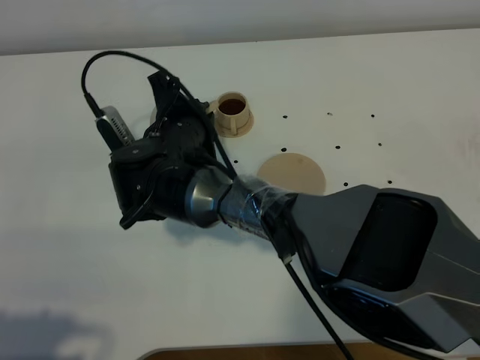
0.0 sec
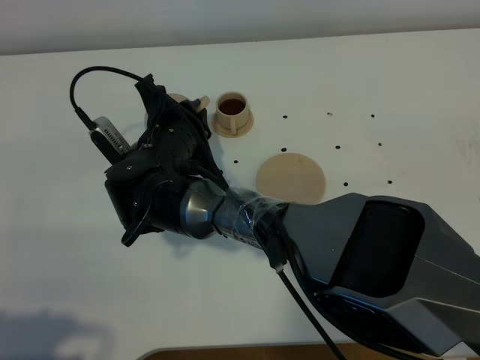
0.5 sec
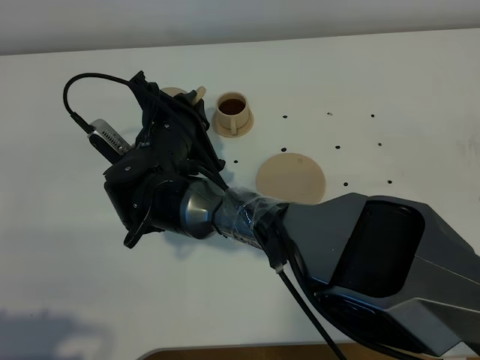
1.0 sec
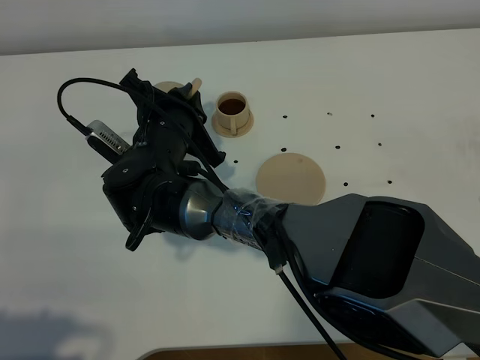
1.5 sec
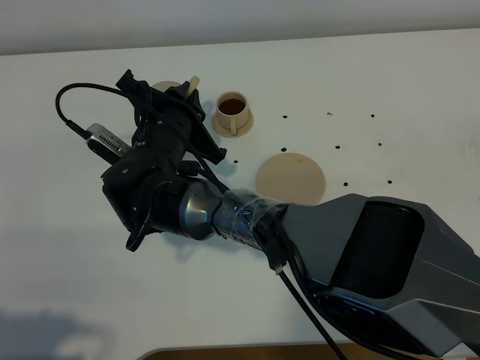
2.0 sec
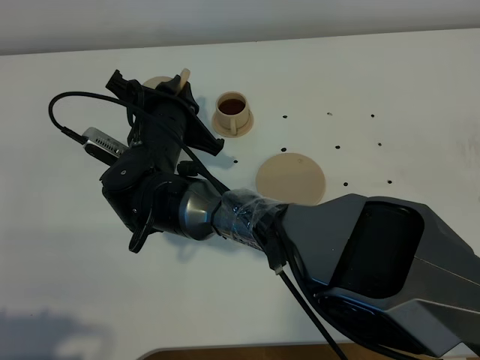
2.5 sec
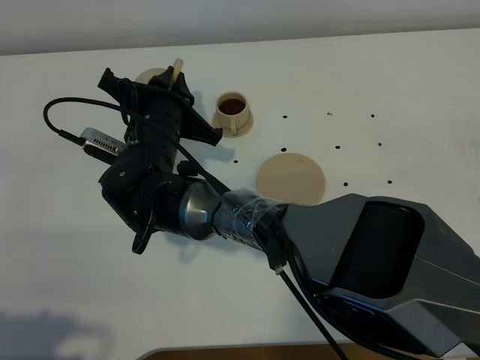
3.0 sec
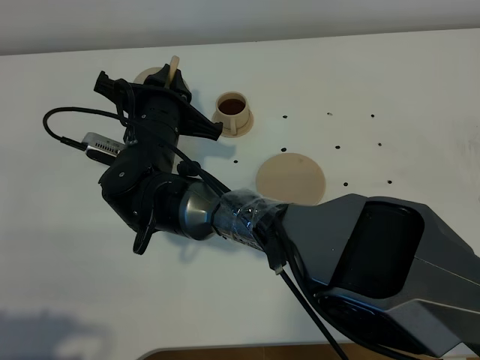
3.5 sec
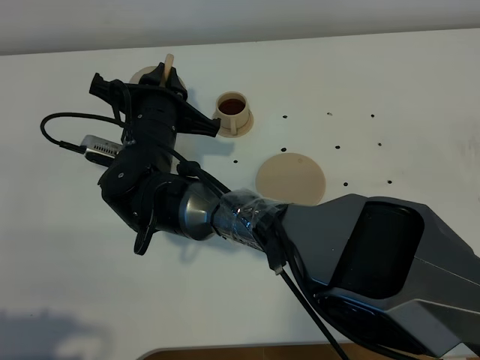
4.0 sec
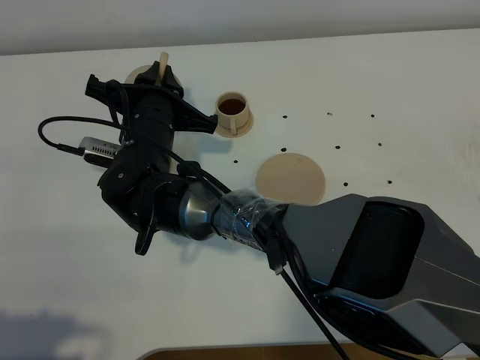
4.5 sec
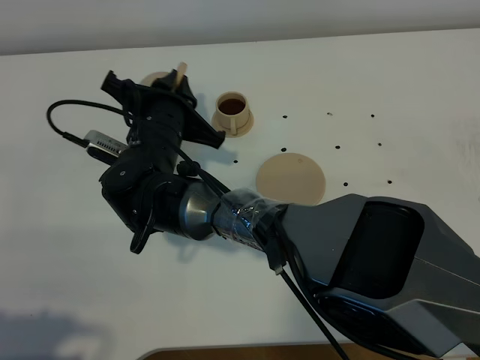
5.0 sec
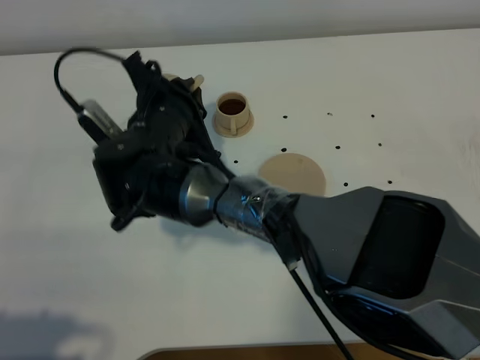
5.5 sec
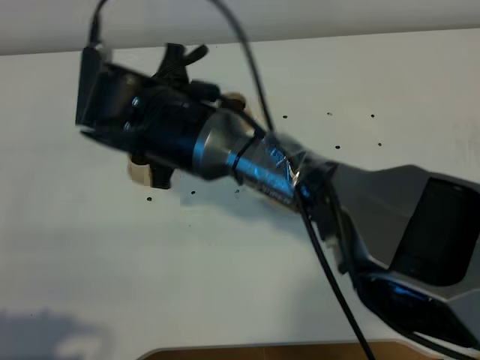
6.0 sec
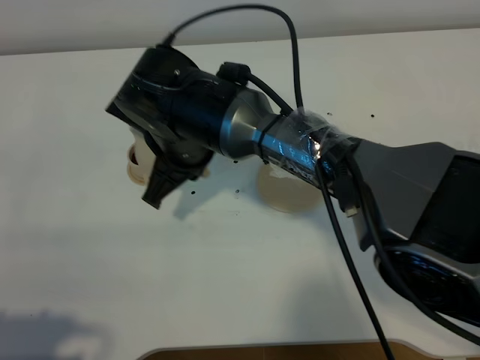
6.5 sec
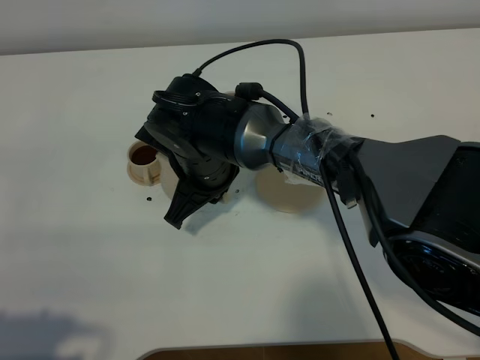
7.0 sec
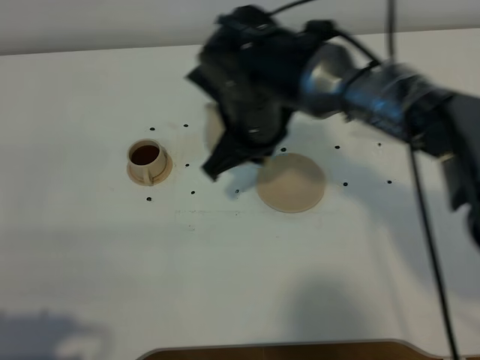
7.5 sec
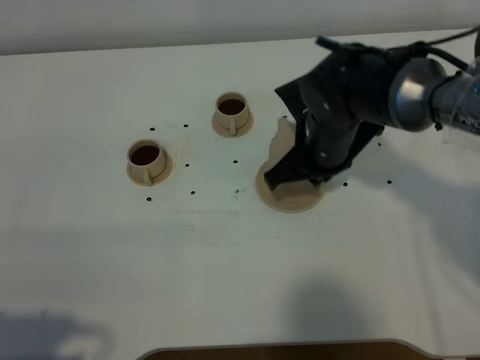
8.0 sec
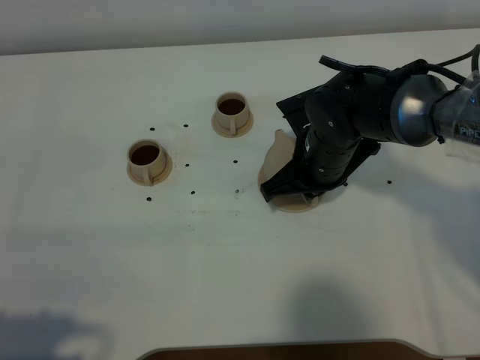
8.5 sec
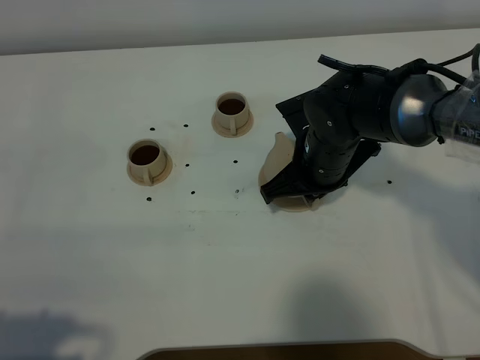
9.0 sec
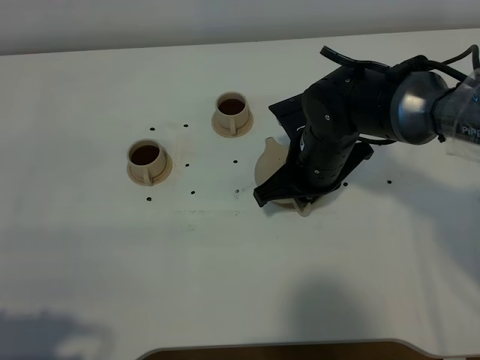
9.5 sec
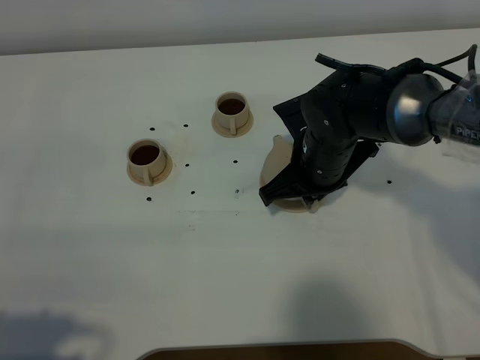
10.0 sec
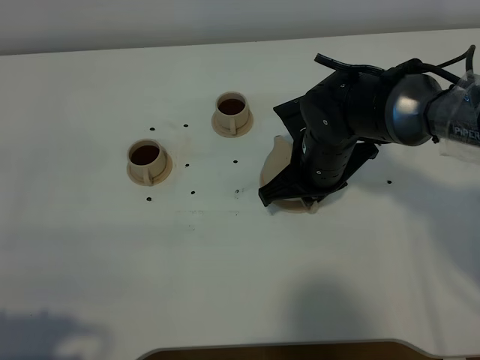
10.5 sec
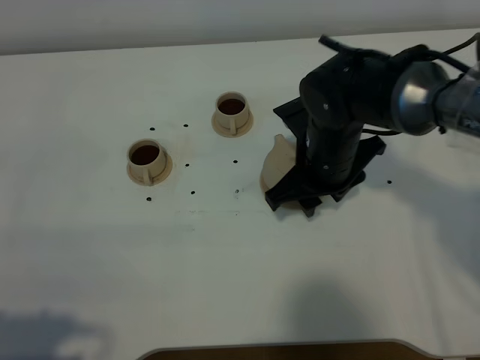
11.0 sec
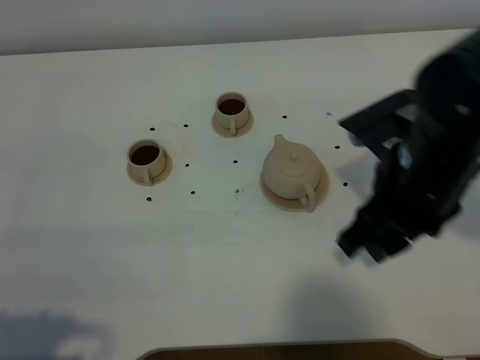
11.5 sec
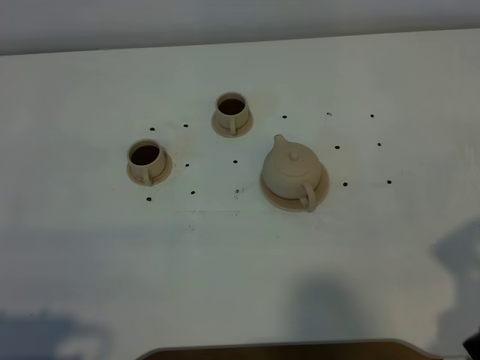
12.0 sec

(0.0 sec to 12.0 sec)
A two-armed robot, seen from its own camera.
Task of the whole recording: grasp the brown teapot and pour the tea into the two brown teacups one by one, put the brown teapot back in its original place.
Step, 0.0 sec - 5.5 sec: Pour tea into the teacup with the right gripper.
2.0 sec - 4.0 sec: The grippers make only small movements.
4.0 sec - 6.0 sec: The right gripper is displaced upward by approximately 5 cm.
6.0 sec - 8.0 sec: The right gripper shifts some 20 cm to the right.
8.0 sec - 10.0 sec: The grippers make only small movements.
10.0 sec - 12.0 sec: The right gripper is displaced backward, to the right and upward by approximately 30 cm, and opens up.

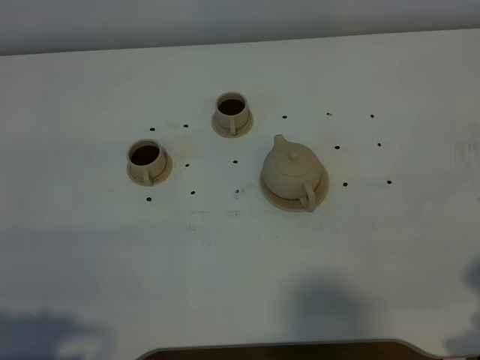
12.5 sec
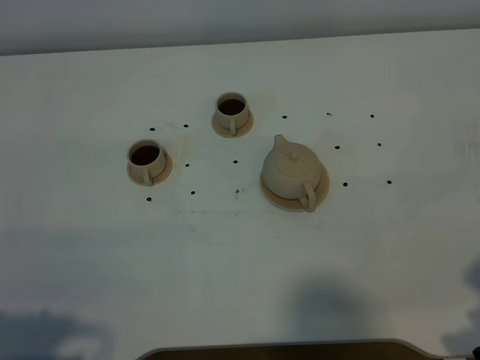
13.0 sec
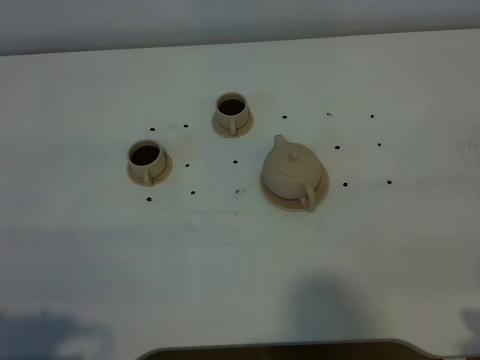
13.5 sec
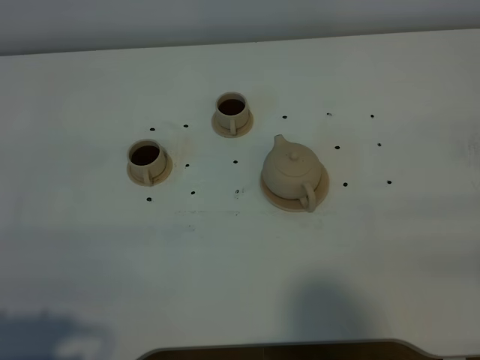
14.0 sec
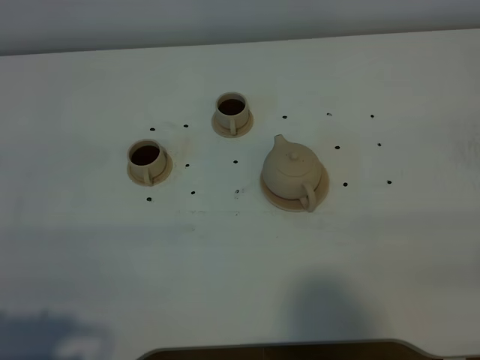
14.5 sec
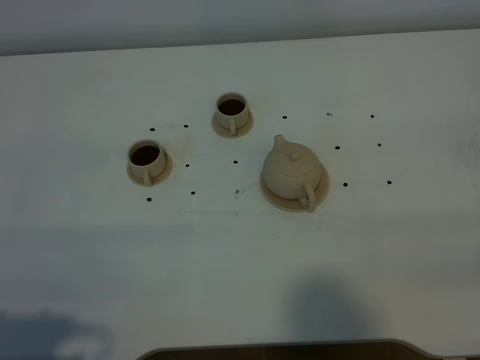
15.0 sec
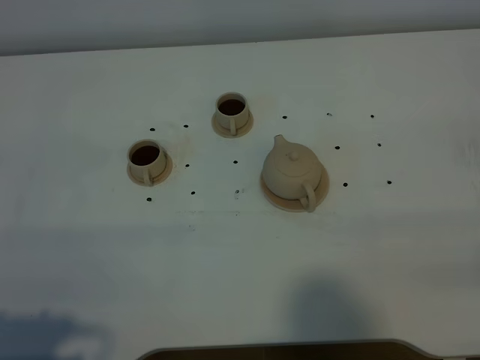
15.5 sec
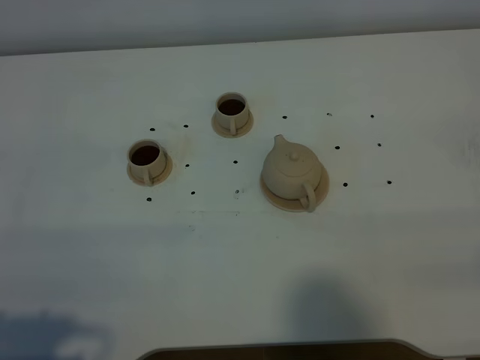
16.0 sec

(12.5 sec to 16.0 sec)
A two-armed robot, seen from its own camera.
Task of the whole recording: grasp the brown teapot and pour the tea into the two brown teacups one by one, put the brown teapot back in its original place.
14.5 sec - 16.0 sec: The two grippers keep their place.

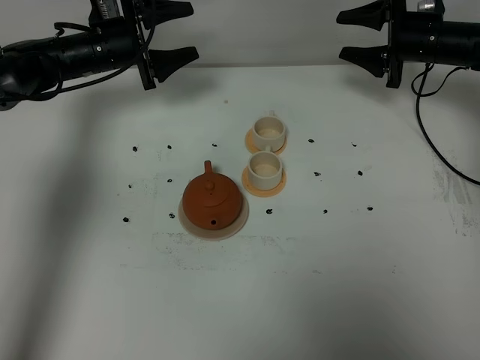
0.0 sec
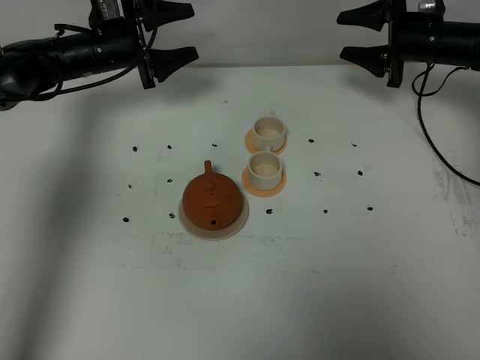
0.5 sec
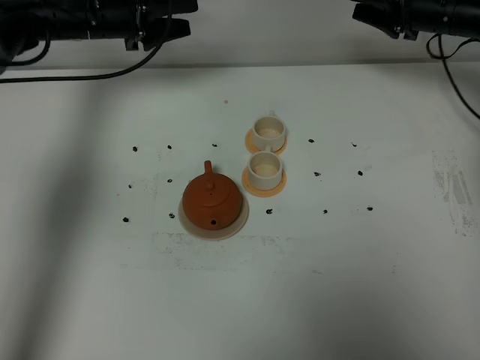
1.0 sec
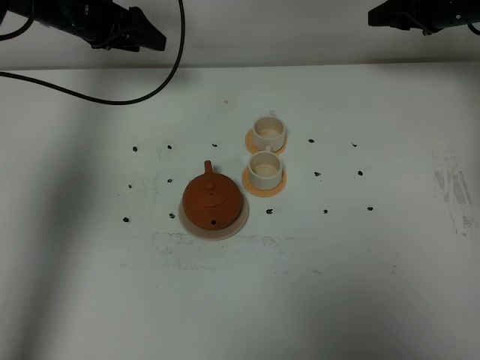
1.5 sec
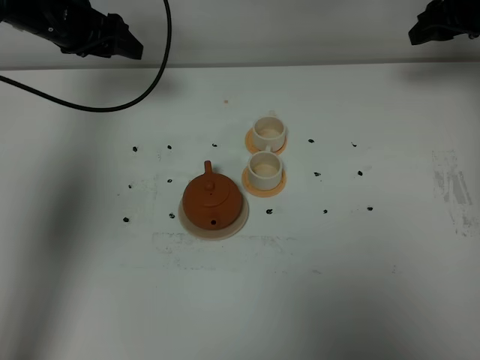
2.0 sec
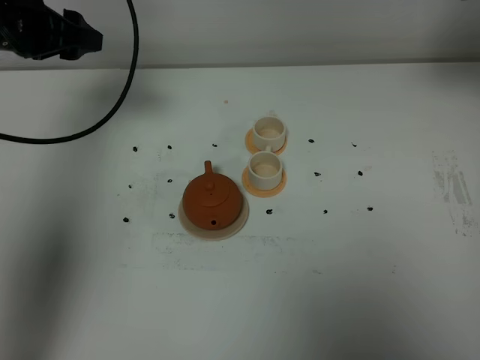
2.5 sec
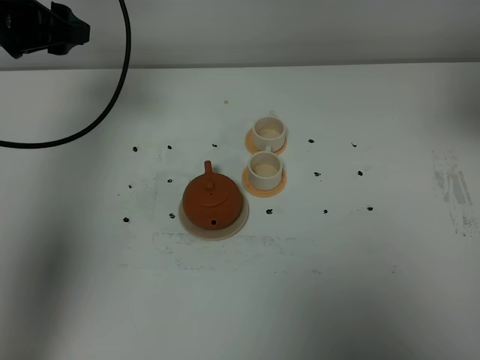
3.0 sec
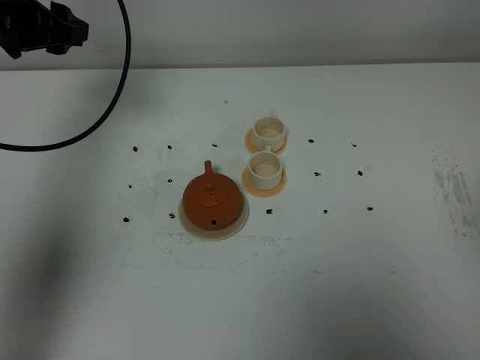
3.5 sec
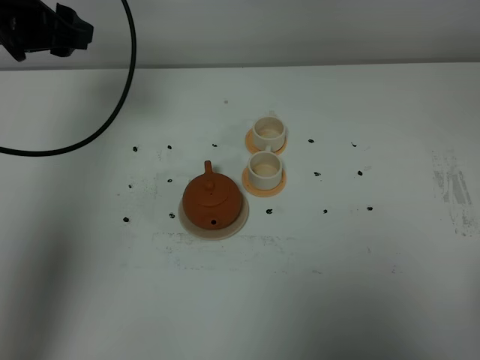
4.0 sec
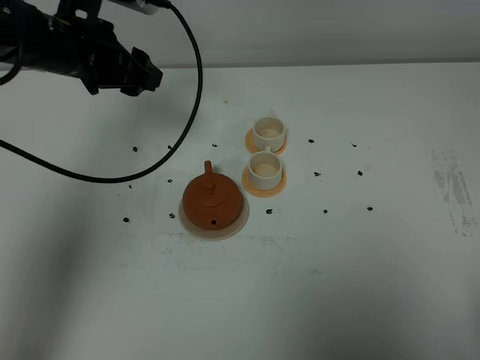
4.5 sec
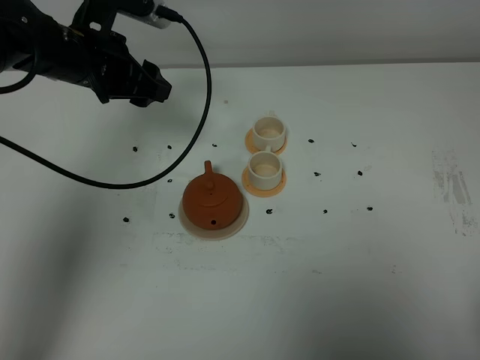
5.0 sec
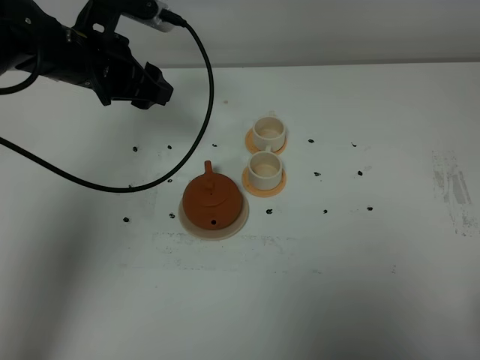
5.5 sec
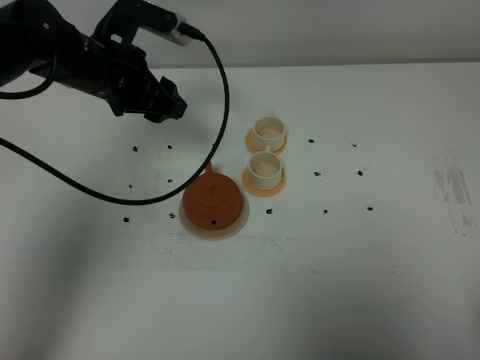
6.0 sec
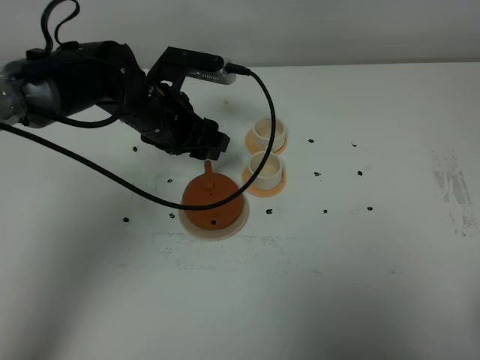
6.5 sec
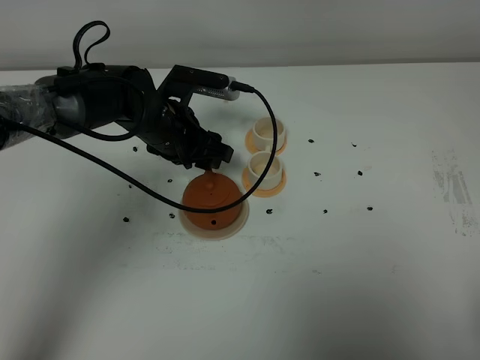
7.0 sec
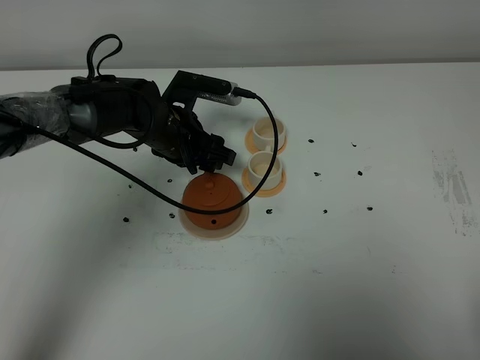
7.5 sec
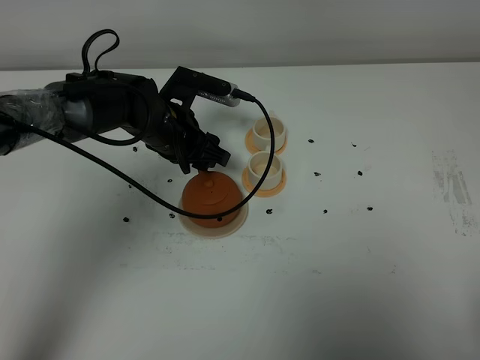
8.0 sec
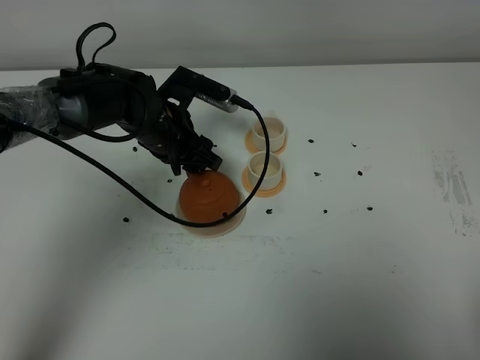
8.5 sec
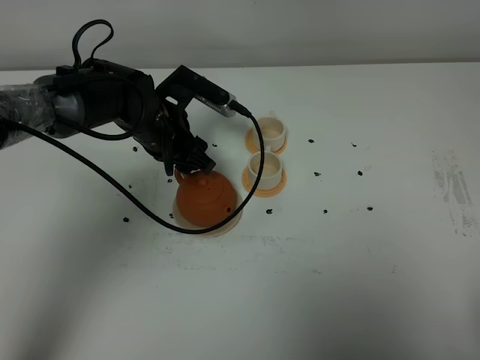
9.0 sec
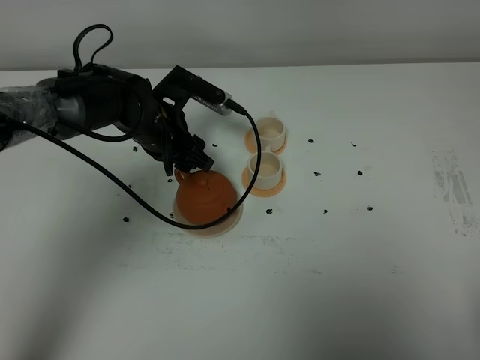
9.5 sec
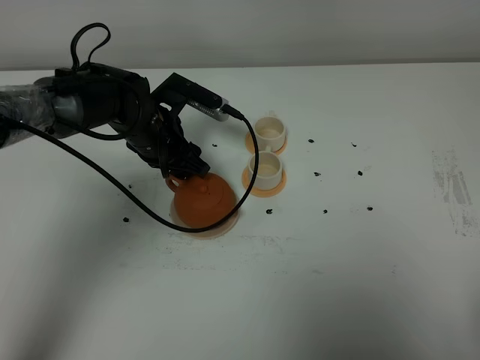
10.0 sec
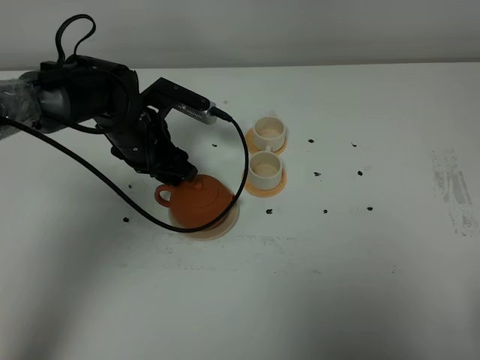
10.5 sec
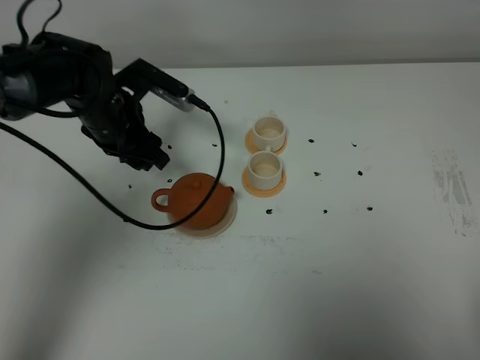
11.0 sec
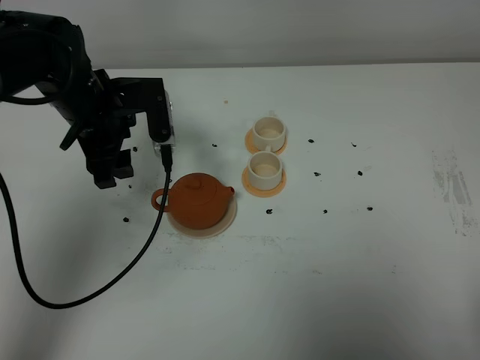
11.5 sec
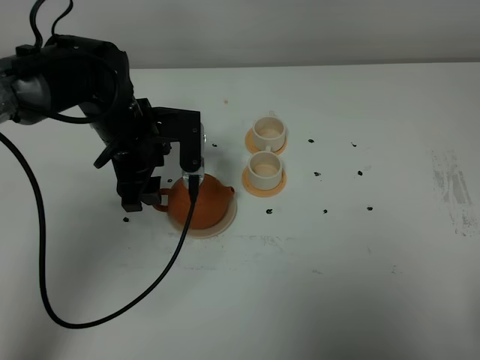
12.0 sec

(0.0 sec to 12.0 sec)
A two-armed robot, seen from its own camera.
Task of the whole recording: grasp the brown teapot and pour the tea into the two white teacups one by one, put the brown teapot back in its original place.
0.0 sec - 2.0 sec: The right gripper goes some 10 cm upward and to the right, and closes, while the left gripper travels upward by approximately 10 cm.
2.0 sec - 4.0 sec: The left gripper travels backward and upward by some 10 cm; the right gripper moves backward, some 50 cm, and closes its fingers.
4.0 sec - 6.0 sec: The left gripper moves to the right and downward, approximately 10 cm.
6.0 sec - 8.0 sec: The left gripper shifts approximately 10 cm downward and to the right.
8.0 sec - 10.0 sec: The grippers stay close to where they were, moving slightly.
